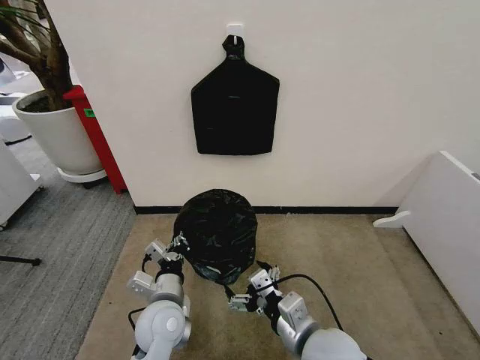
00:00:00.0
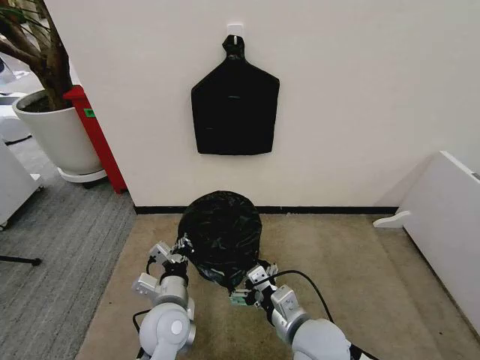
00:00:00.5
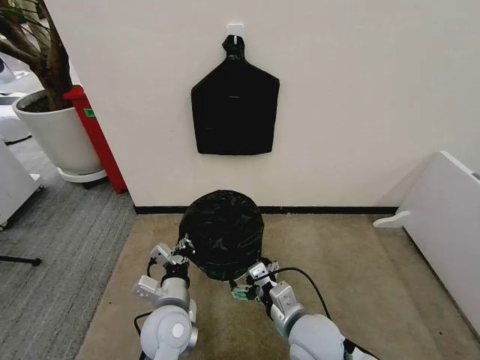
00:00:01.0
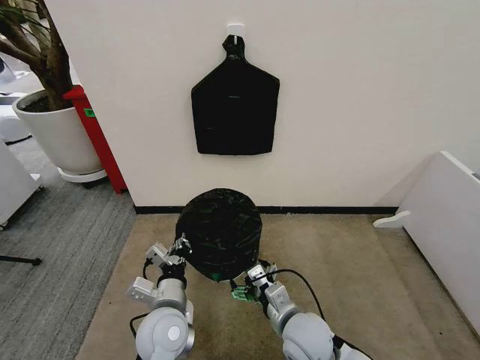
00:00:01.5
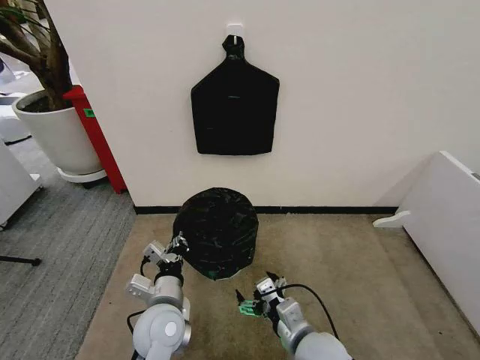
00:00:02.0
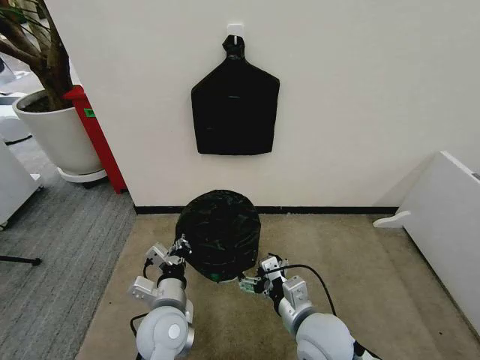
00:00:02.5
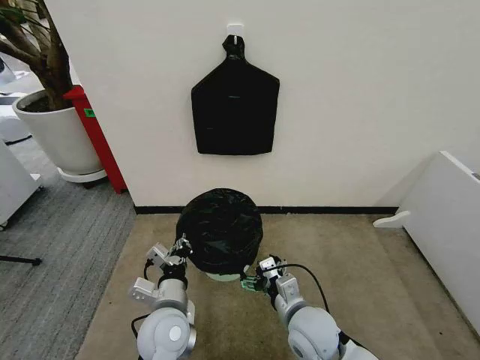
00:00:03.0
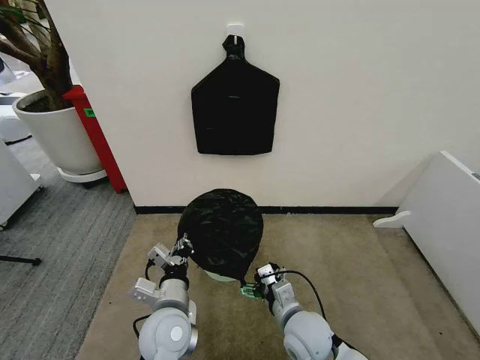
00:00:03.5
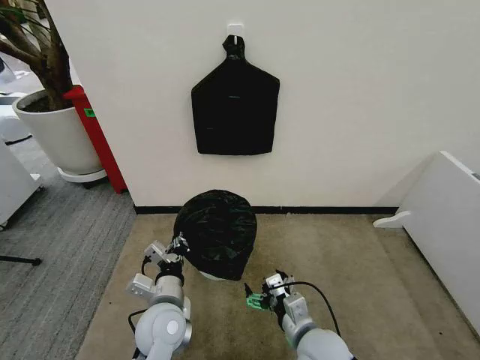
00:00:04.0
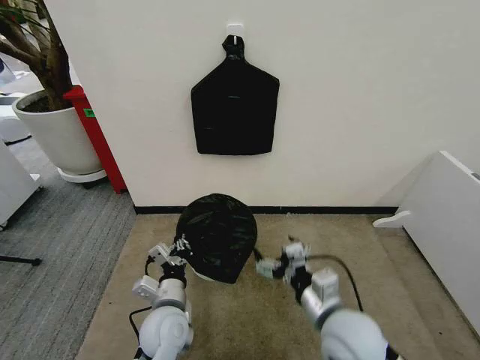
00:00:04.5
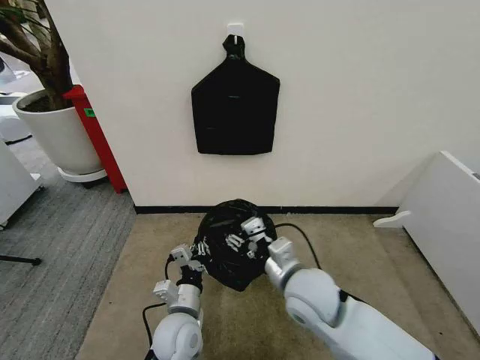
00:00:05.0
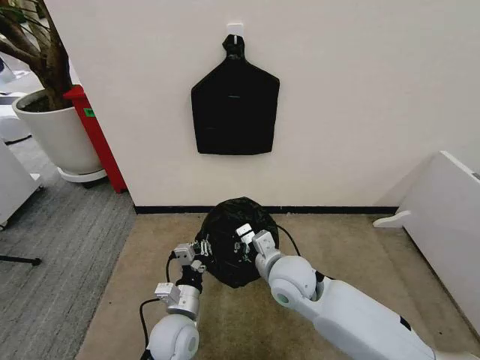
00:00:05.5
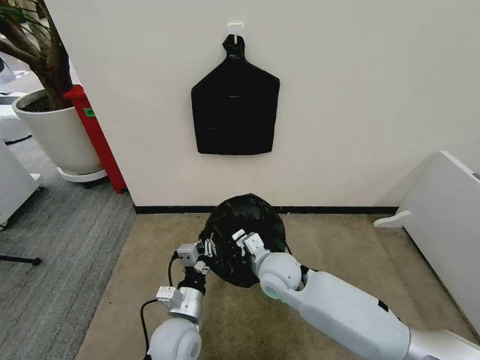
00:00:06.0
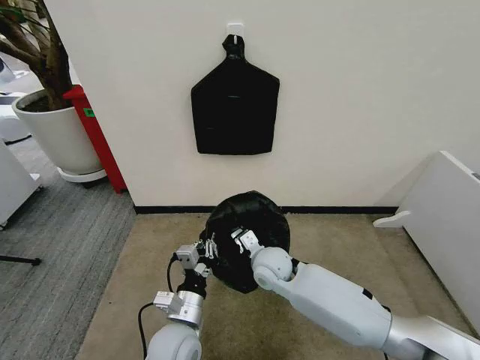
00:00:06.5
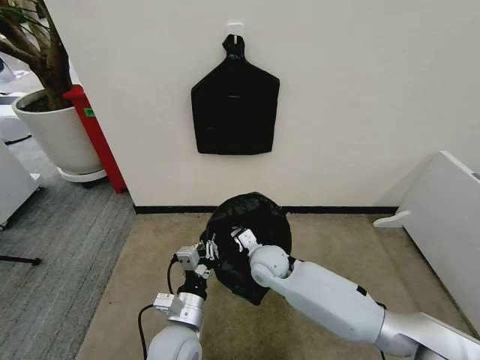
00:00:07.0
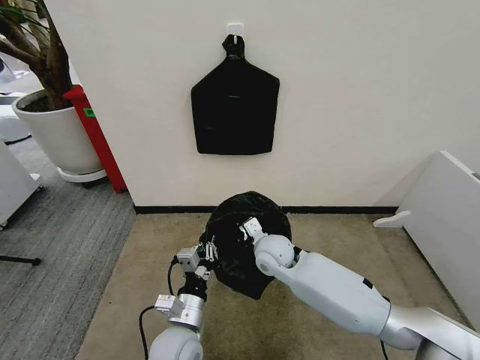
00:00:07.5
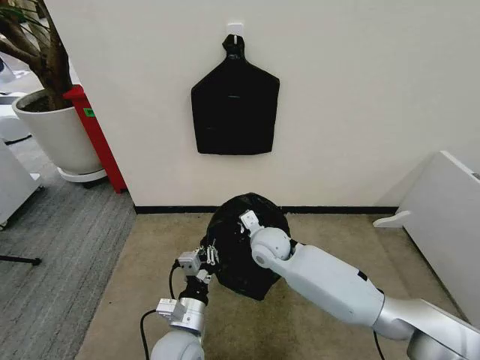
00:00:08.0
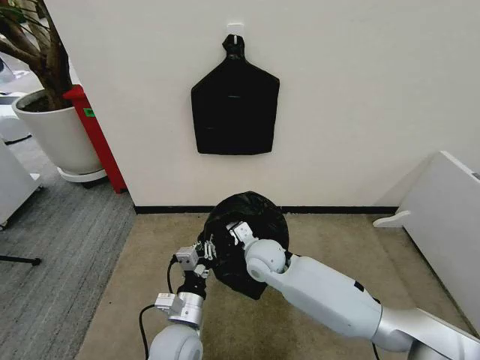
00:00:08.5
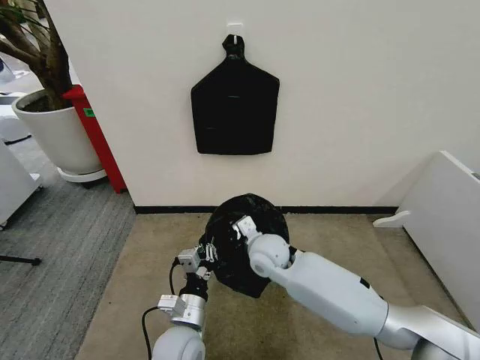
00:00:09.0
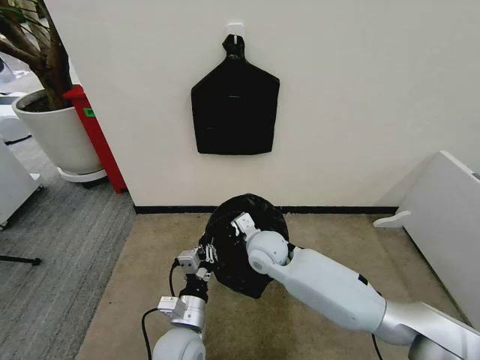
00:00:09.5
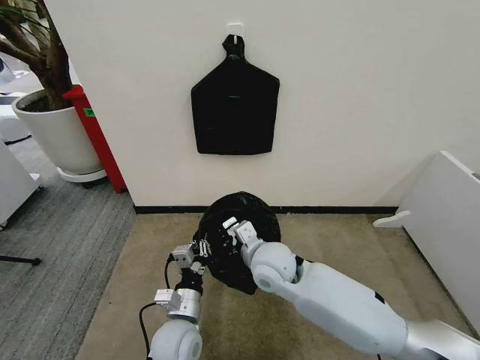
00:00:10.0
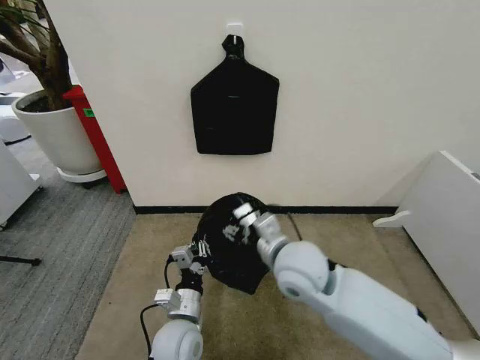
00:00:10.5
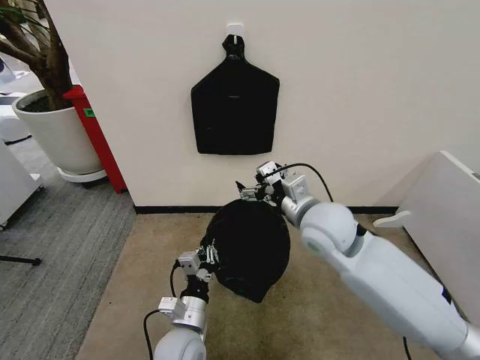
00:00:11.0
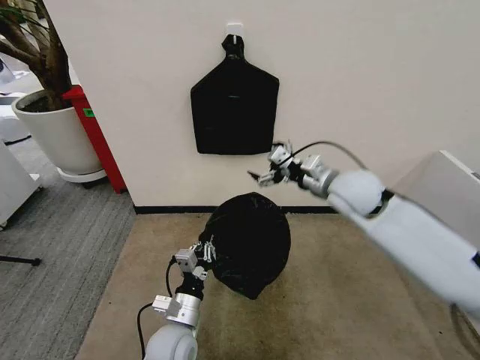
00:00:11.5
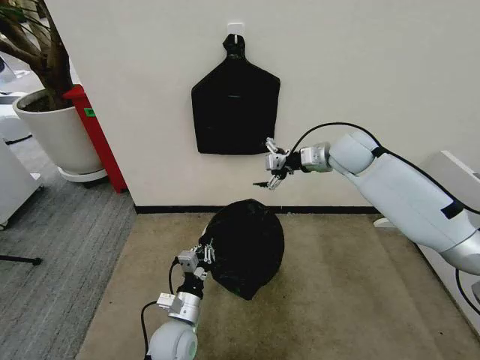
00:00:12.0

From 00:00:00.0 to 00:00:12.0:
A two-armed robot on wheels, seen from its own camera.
Task of the whole recording: Place the garbage bag over the trash bin.
From 00:00:00.0 to 00:00:02.0: The right gripper moves downward, some 5 cm.
From 00:00:02.0 to 00:00:04.0: There are only small adjustments of the grippers.
From 00:00:04.0 to 00:00:06.0: The right gripper heads forward and to the left, covering roughly 15 cm, and closes.
From 00:00:06.0 to 00:00:08.0: The right gripper travels forward by roughly 5 cm.
From 00:00:08.0 to 00:00:10.0: The right gripper moves backward, approximately 5 cm.
From 00:00:10.0 to 00:00:12.0: The right gripper heads forward, to the right and upward, covering about 30 cm, and opens.

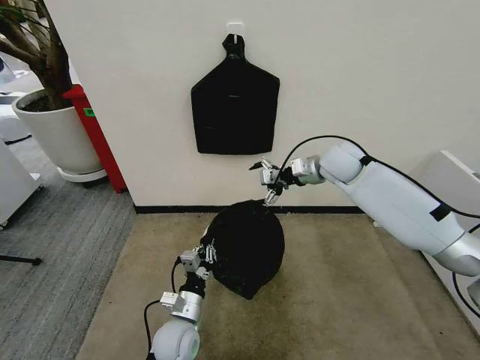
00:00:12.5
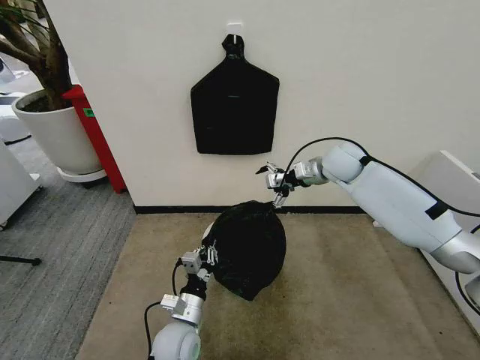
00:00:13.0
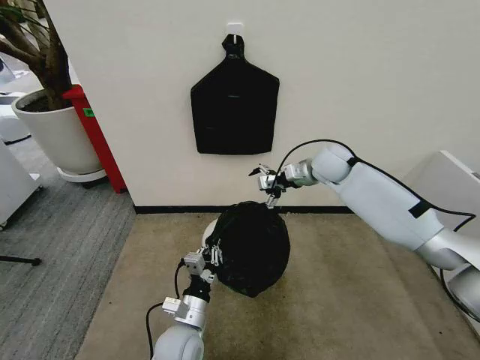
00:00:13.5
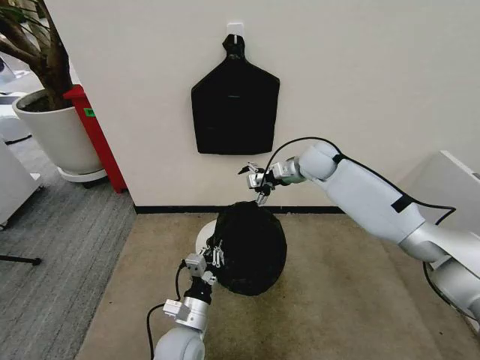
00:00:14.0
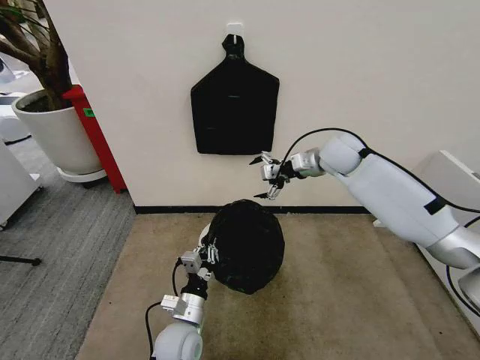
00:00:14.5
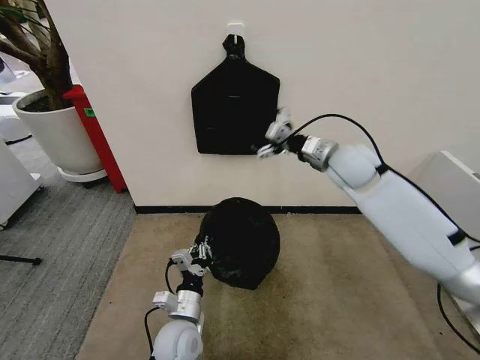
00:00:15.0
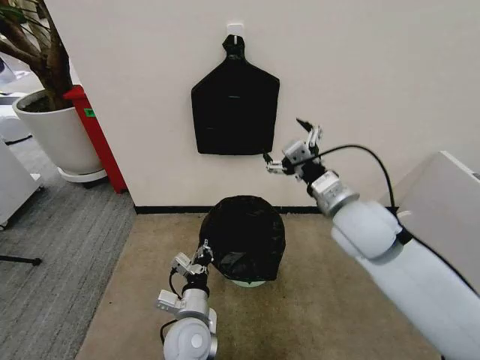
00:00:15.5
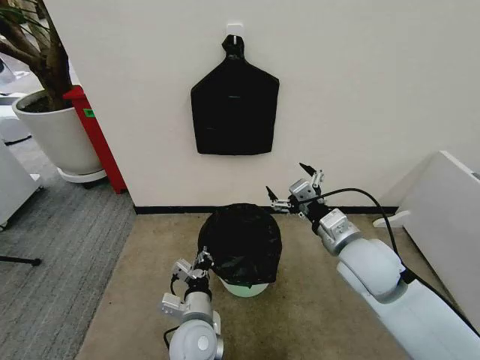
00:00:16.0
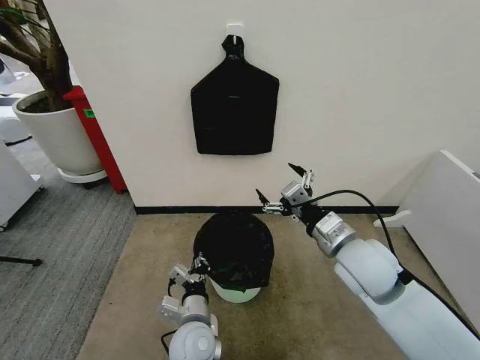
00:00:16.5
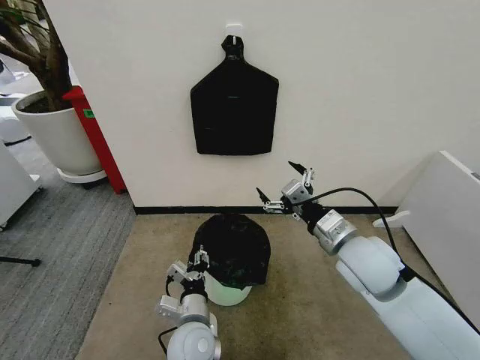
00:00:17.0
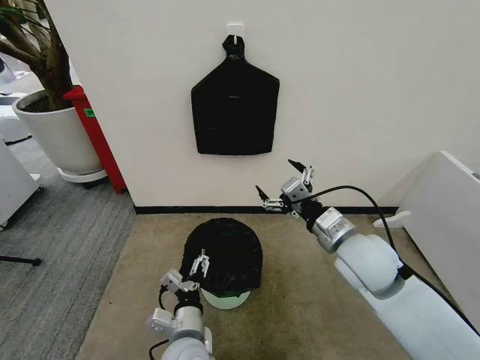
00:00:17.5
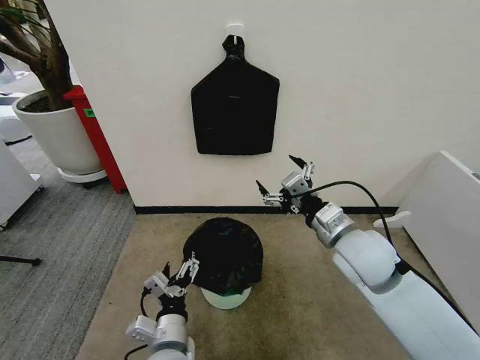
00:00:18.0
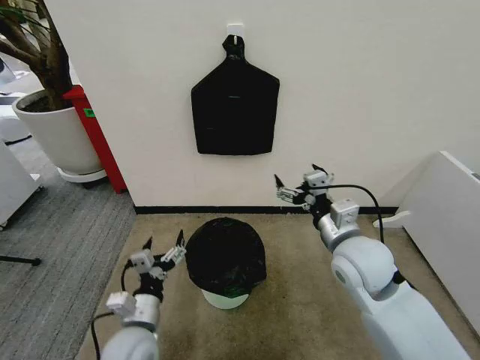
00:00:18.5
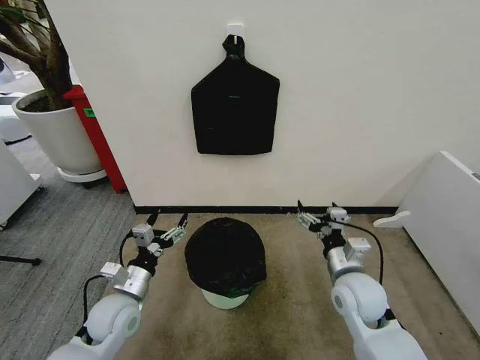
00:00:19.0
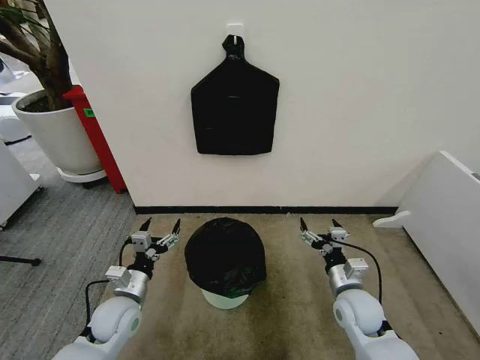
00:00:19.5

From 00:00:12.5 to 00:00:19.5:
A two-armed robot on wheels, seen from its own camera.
Task of the whole recording: Place the garbage bag over the trash bin.
From 00:00:12.5 to 00:00:14.5: The grippers move only a little.
From 00:00:14.5 to 00:00:16.0: The left gripper shifts by roughly 5 cm. Meanwhile the right gripper moves backward, about 25 cm.
From 00:00:16.0 to 00:00:17.5: The left gripper opens its fingers.
From 00:00:17.5 to 00:00:19.5: The left gripper travels to the left and forward by some 20 cm. The right gripper shifts approximately 20 cm downward.
